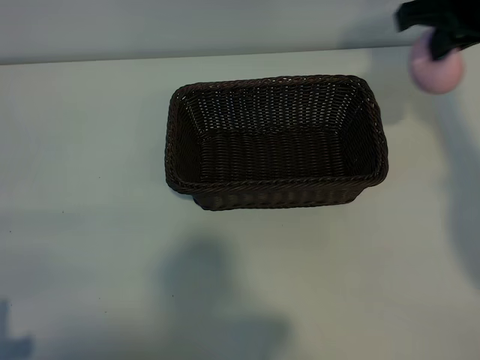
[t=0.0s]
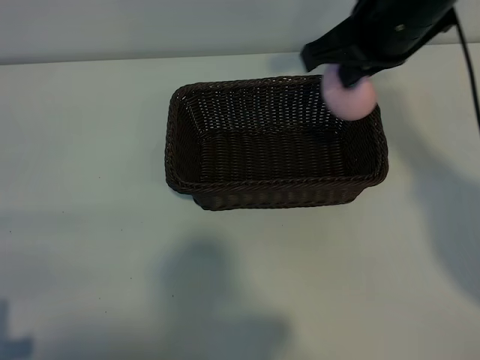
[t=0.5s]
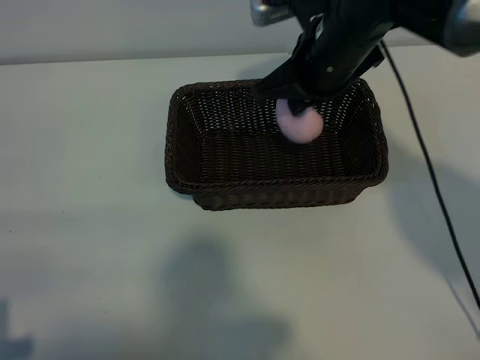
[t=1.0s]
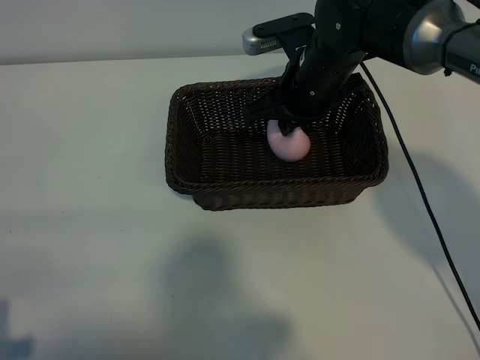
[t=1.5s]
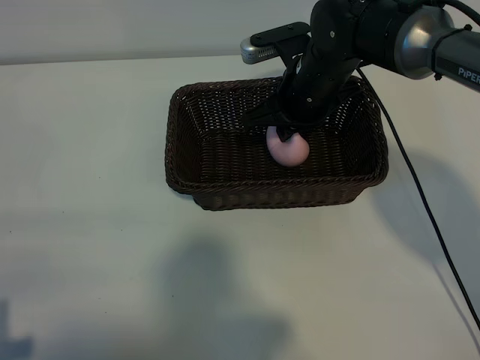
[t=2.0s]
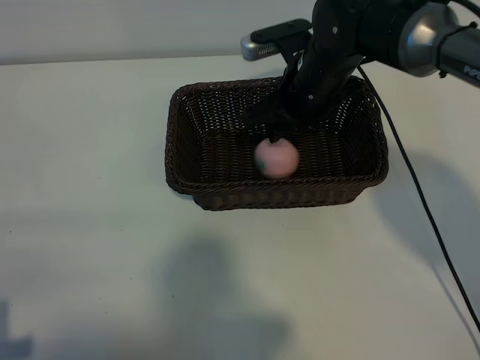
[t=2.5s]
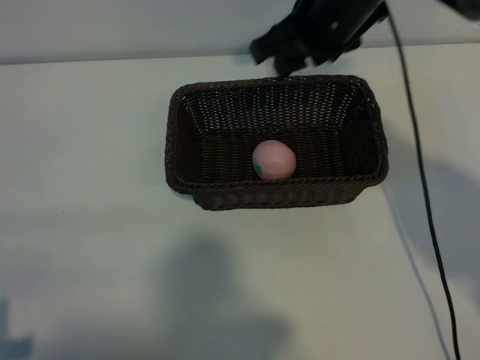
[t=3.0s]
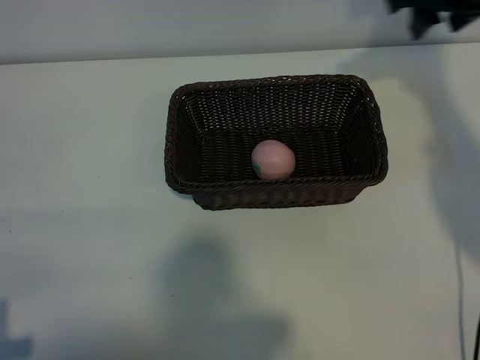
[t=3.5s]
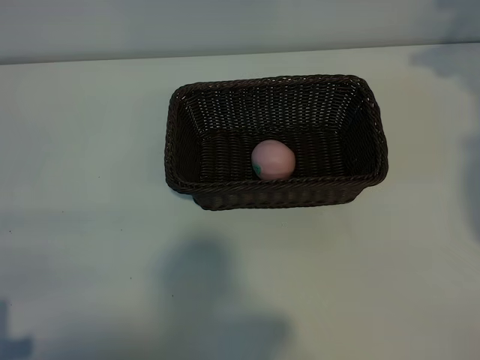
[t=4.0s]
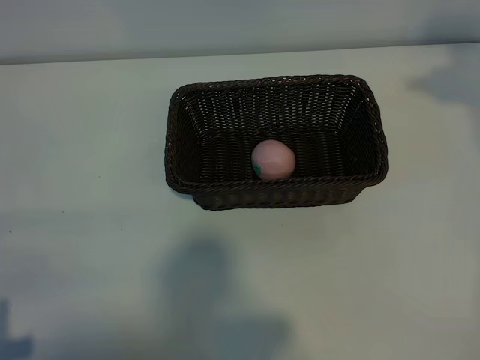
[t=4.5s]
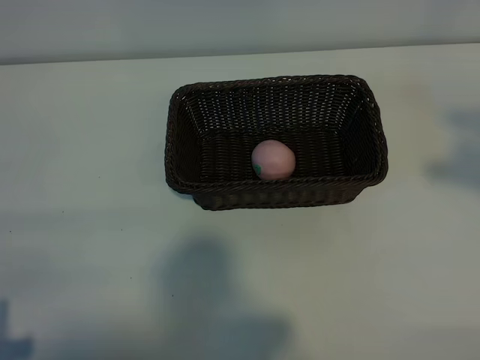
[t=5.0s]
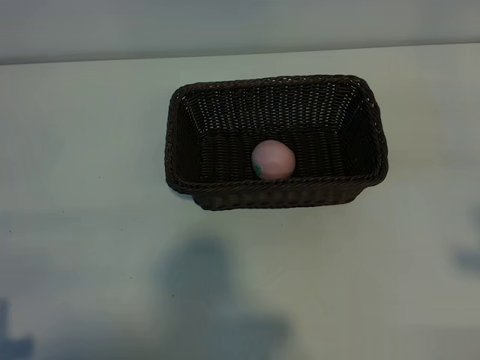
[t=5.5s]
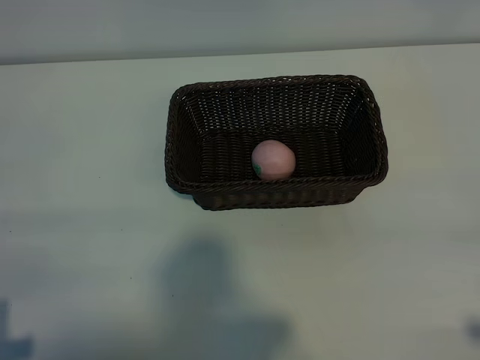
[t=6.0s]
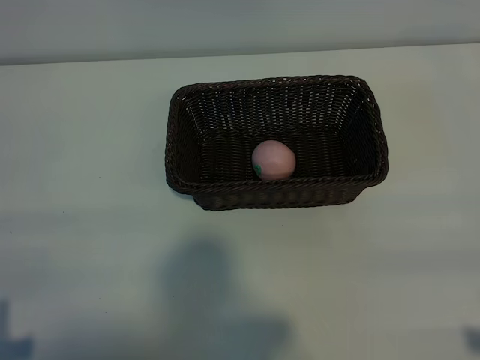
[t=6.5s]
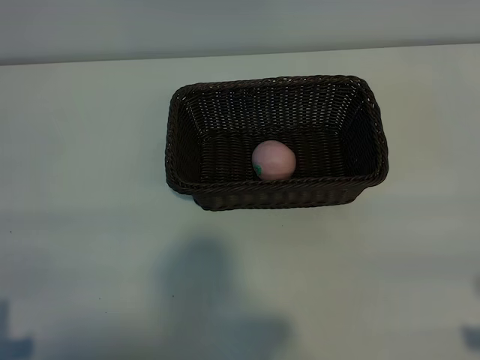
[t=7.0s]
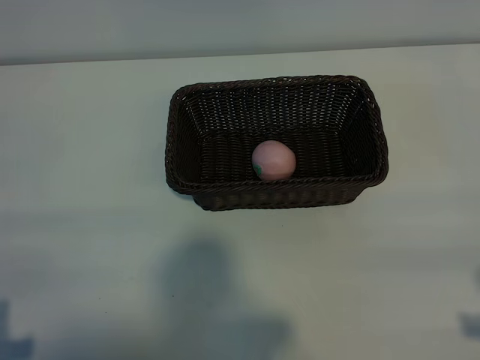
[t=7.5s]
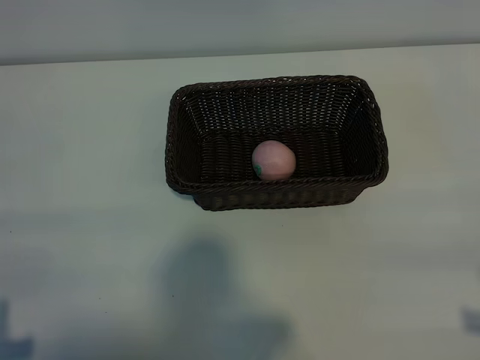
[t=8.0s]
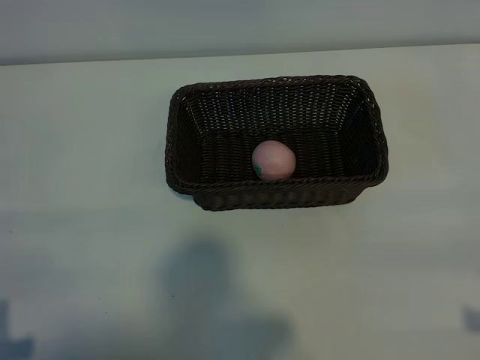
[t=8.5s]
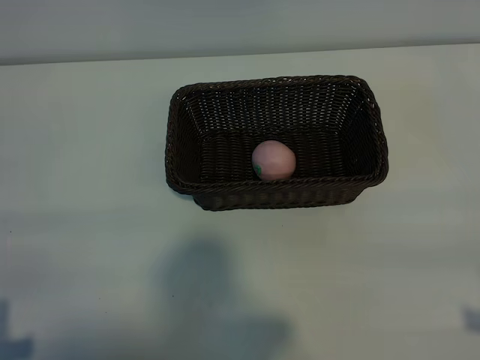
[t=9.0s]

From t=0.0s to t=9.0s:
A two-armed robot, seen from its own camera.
Task of the whole recording: pick up the peach and put it into the basket.
Step, from t=0.0s to t=2.5s: Place the peach in the basket with right gripper.

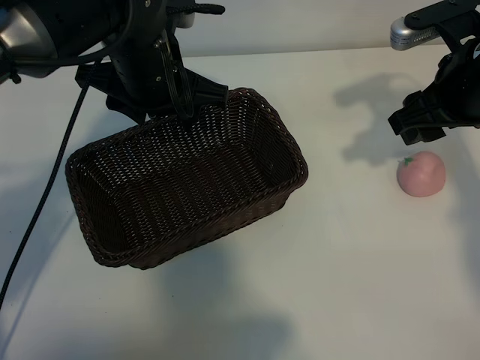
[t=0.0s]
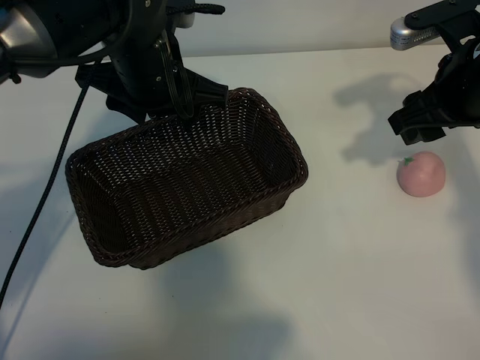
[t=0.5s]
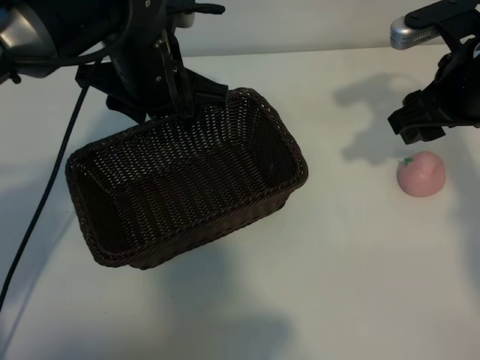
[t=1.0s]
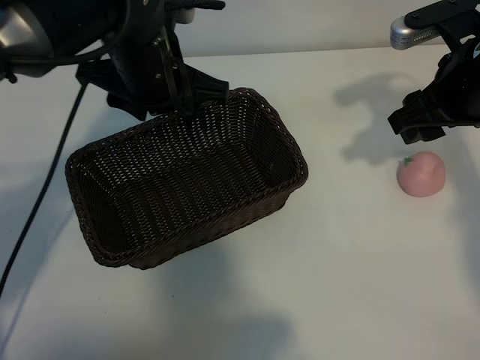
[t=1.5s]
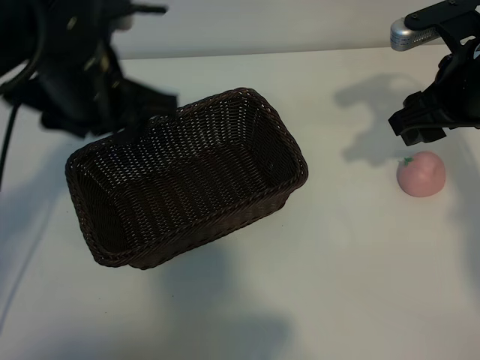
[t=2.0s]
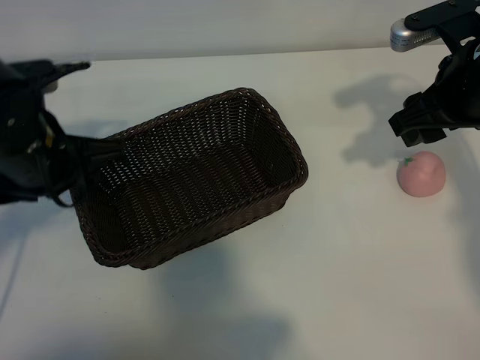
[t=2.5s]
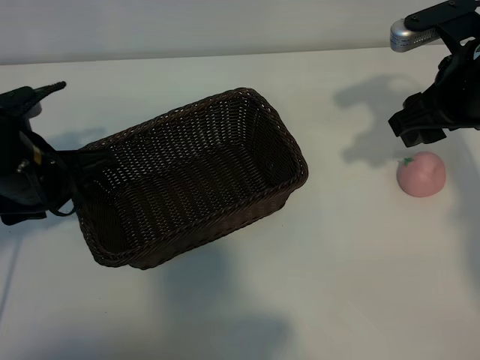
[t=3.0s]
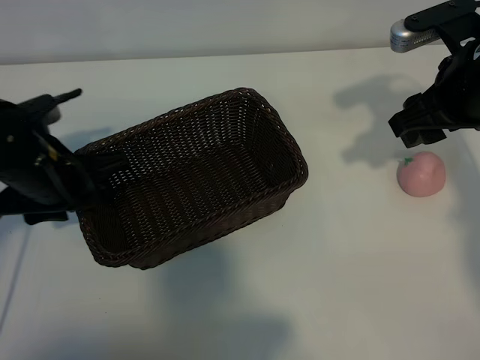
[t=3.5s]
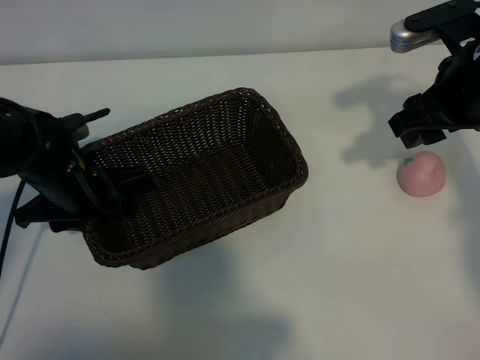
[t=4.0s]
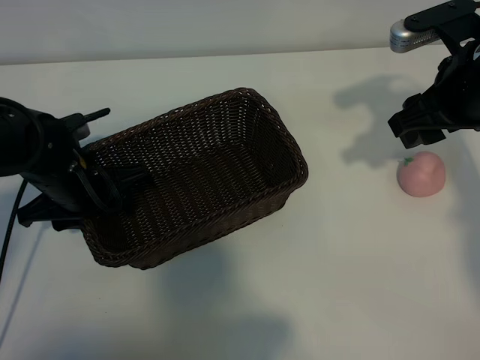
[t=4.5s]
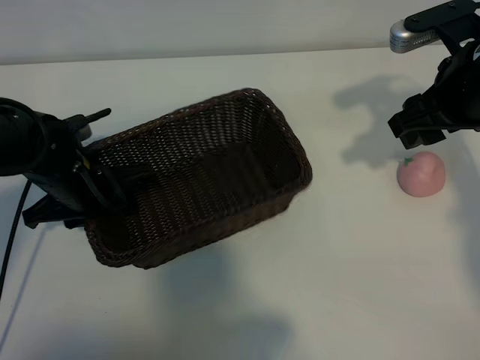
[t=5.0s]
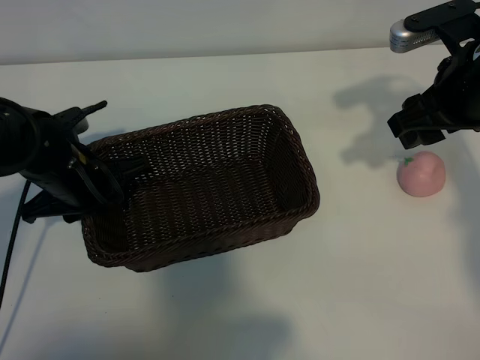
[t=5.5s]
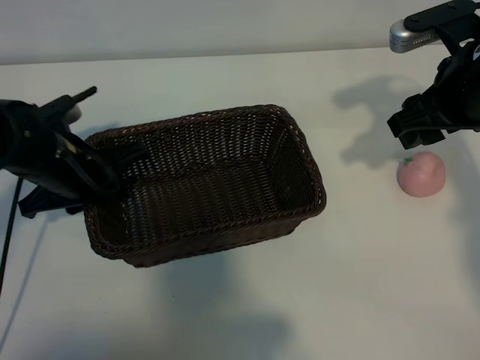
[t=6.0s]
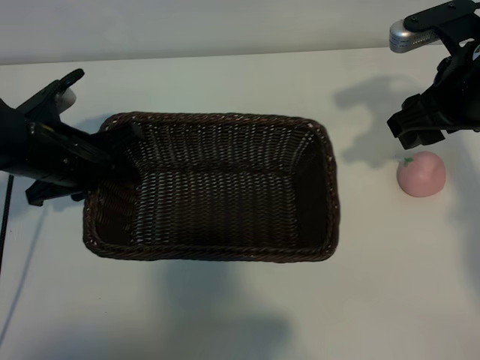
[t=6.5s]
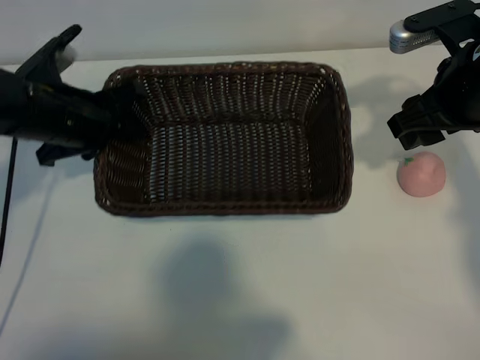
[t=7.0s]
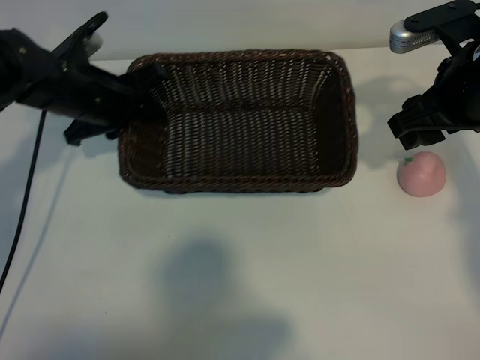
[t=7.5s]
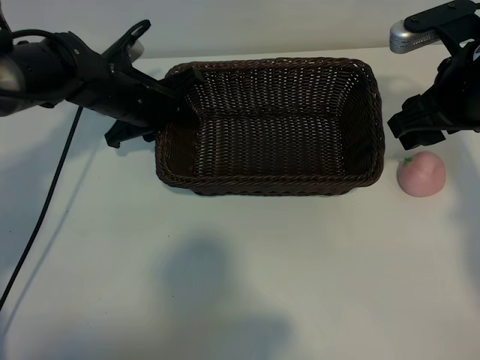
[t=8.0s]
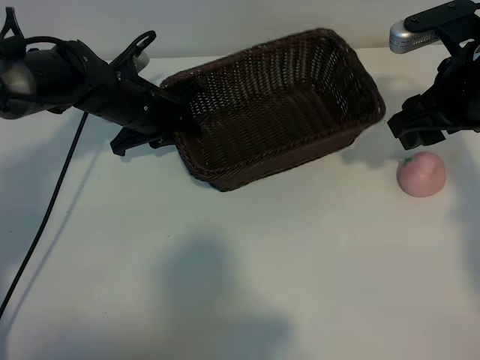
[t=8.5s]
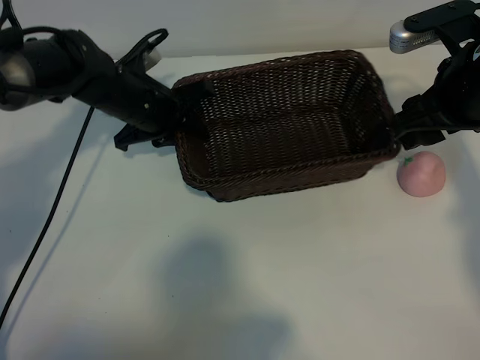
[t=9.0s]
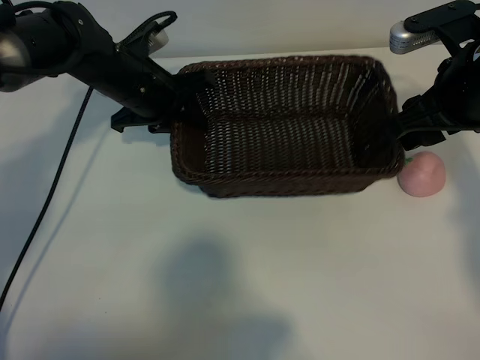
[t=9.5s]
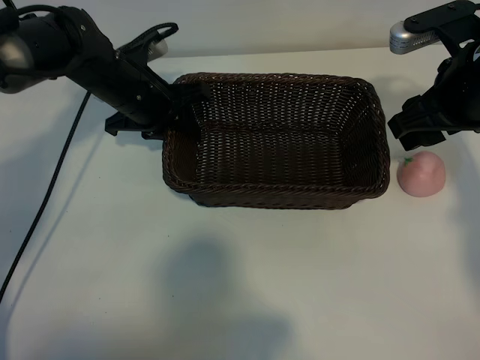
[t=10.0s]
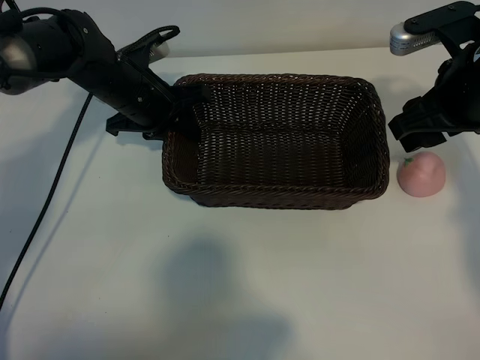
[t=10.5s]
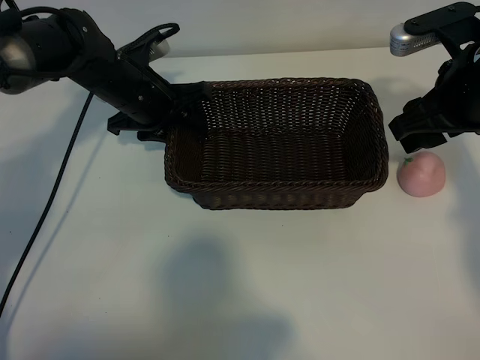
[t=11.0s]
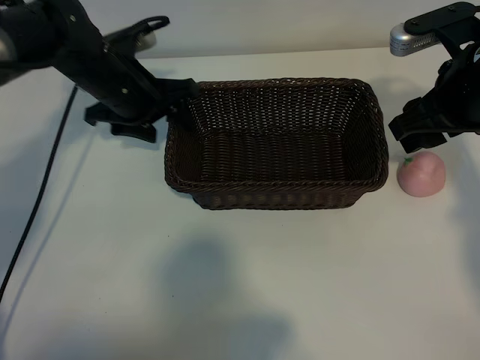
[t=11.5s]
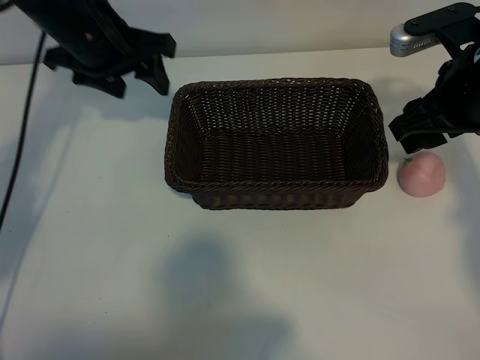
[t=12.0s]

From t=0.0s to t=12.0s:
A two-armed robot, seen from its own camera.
Task of the whole recording: pick up the peach and put it into the basket.
Step, from t=1.0s to t=5.0s: Grasp the basket with left gripper.
Step, from t=5.5s to t=11.5s: Place the basket in the center of view with left gripper.

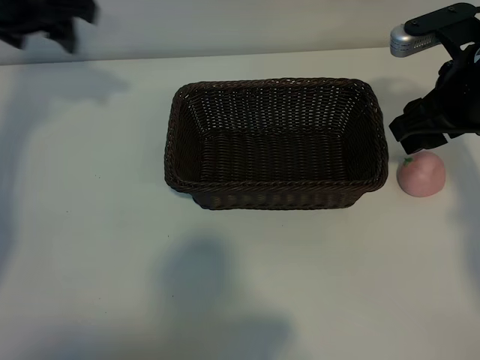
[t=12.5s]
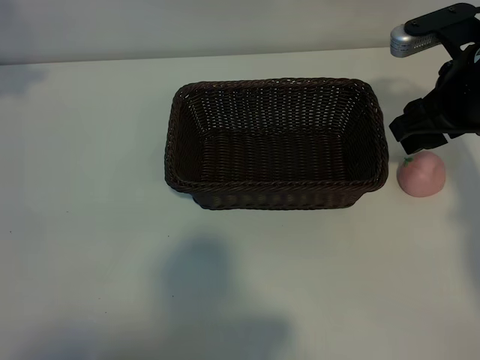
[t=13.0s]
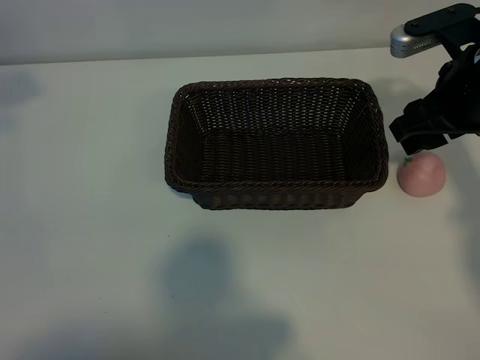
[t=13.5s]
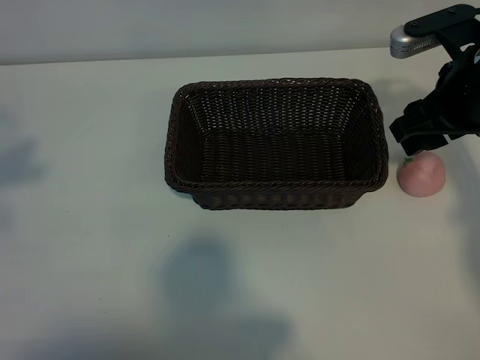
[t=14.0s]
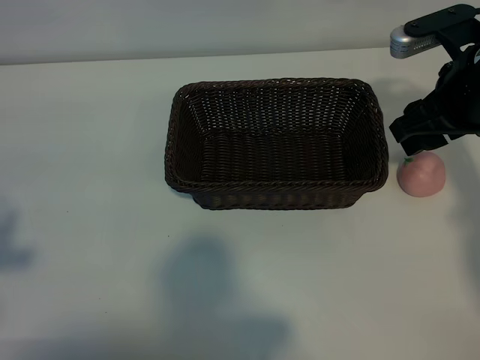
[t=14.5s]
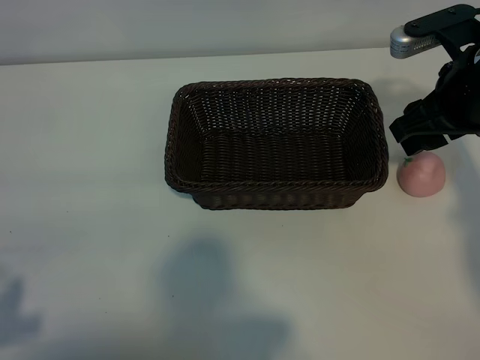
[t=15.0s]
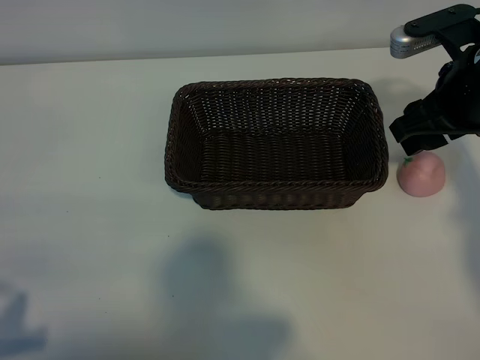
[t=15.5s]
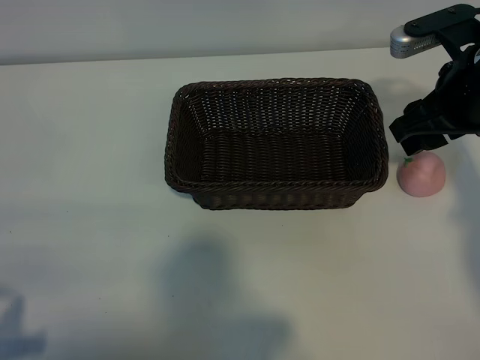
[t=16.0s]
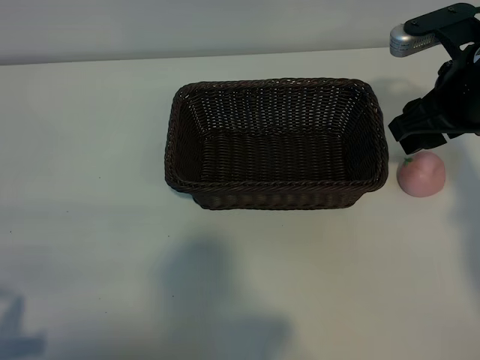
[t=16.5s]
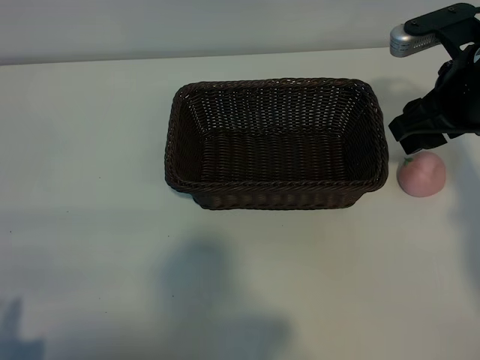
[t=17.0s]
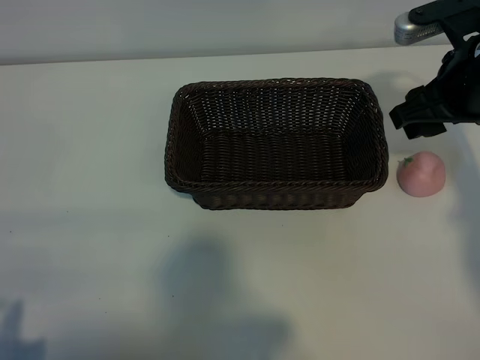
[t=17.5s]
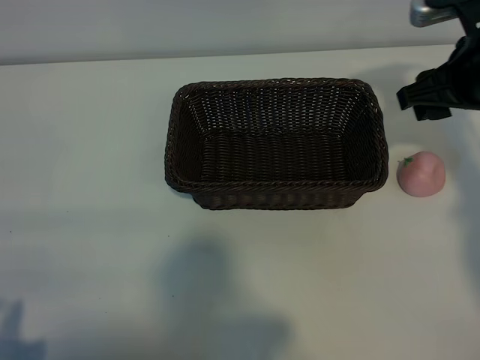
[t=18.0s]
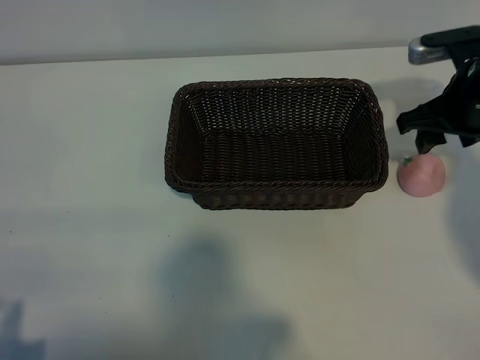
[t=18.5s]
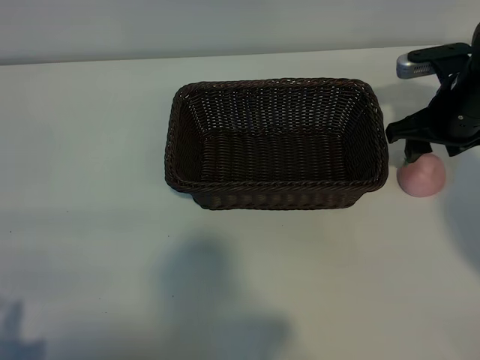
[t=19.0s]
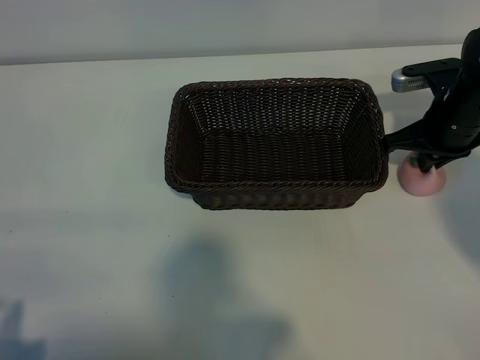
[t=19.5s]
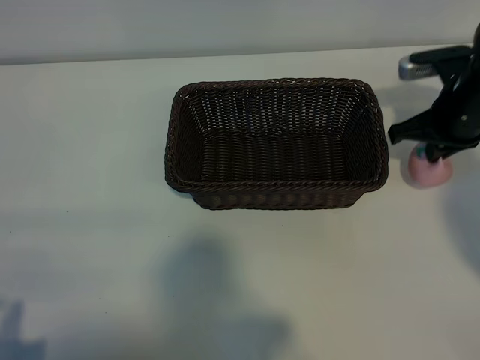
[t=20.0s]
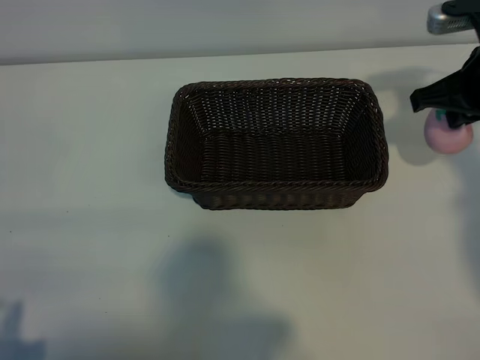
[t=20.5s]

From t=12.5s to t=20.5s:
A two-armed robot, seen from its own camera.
Task of the whole recording: pick up the peach and put it into the basket.
Step, from t=12.5s to t=19.5s: Grasp the peach with right gripper.
